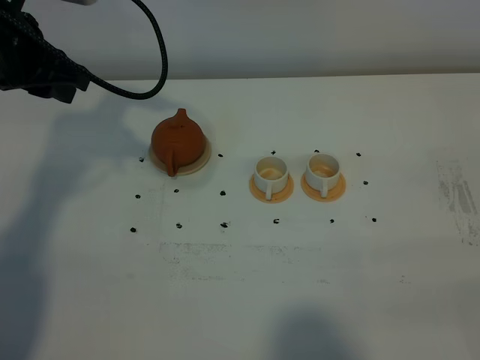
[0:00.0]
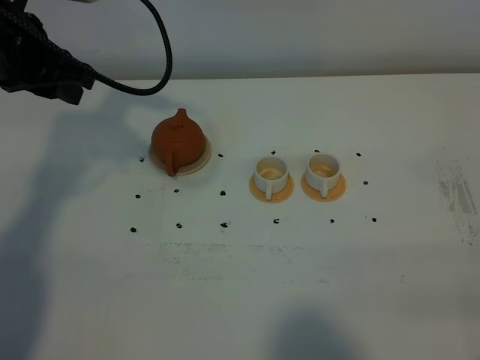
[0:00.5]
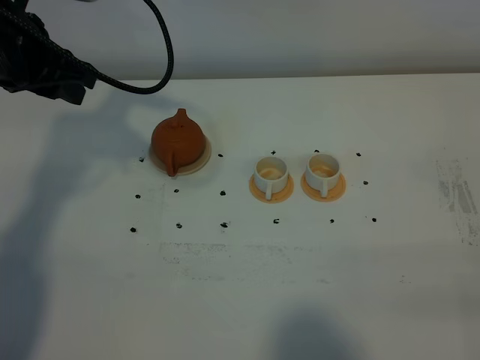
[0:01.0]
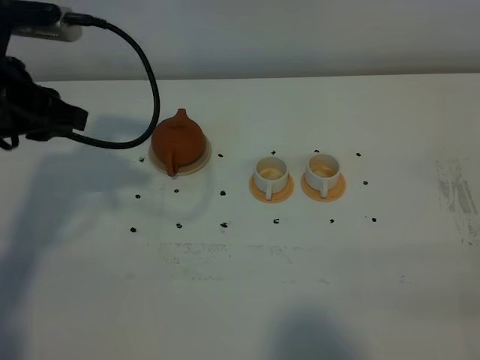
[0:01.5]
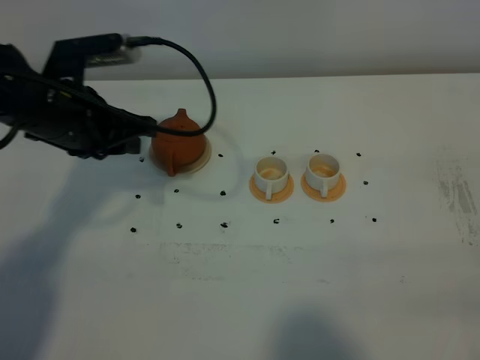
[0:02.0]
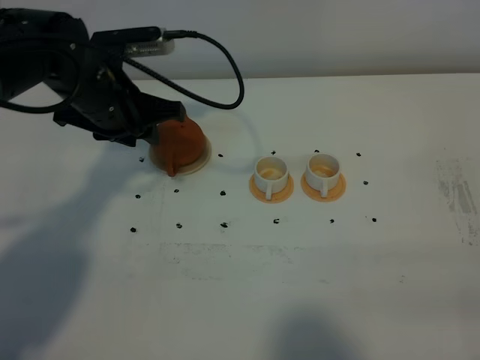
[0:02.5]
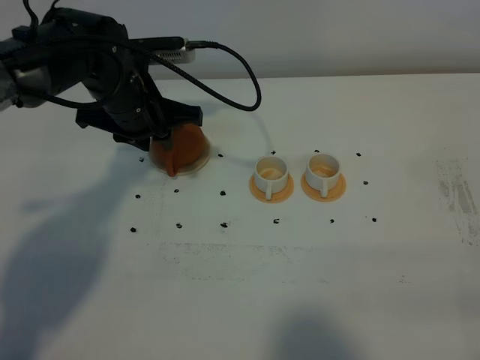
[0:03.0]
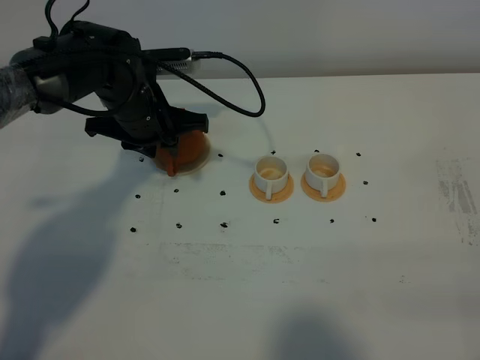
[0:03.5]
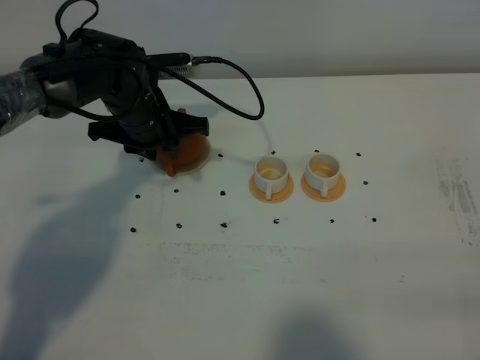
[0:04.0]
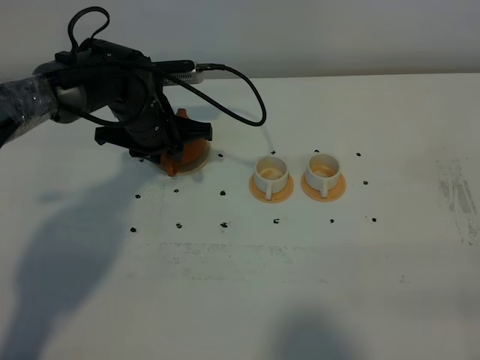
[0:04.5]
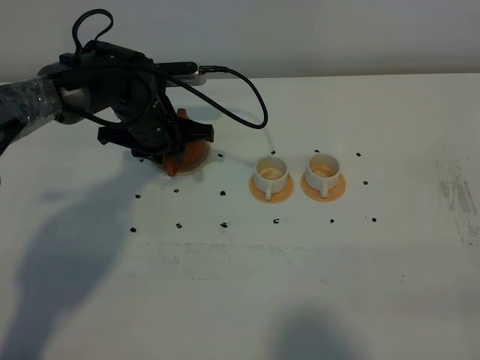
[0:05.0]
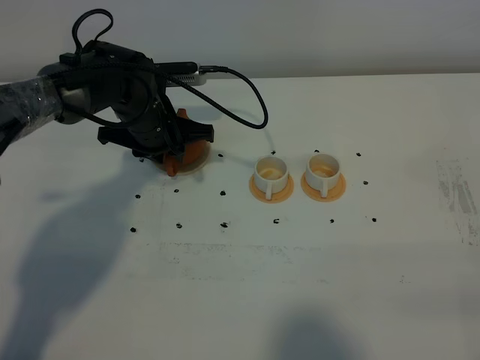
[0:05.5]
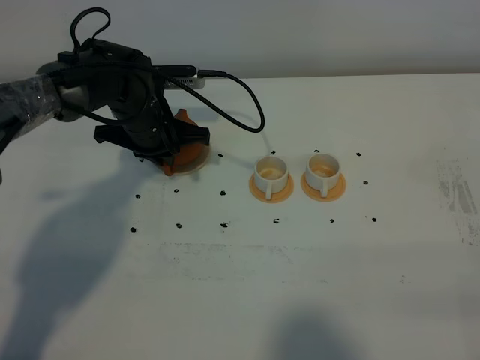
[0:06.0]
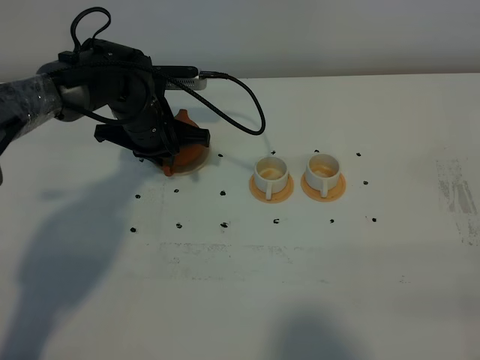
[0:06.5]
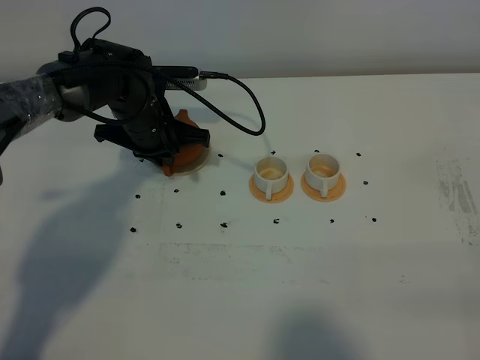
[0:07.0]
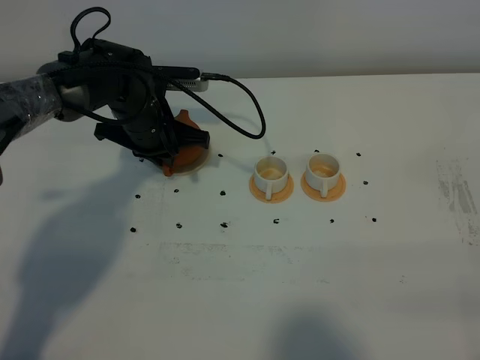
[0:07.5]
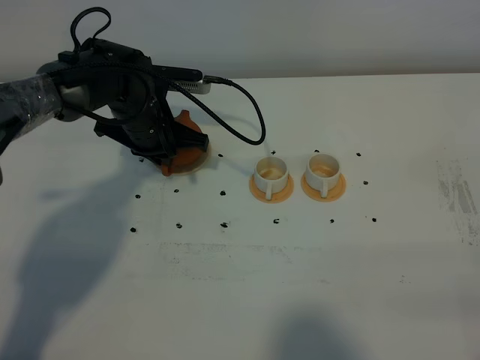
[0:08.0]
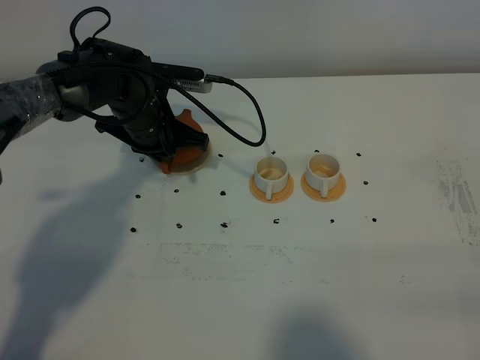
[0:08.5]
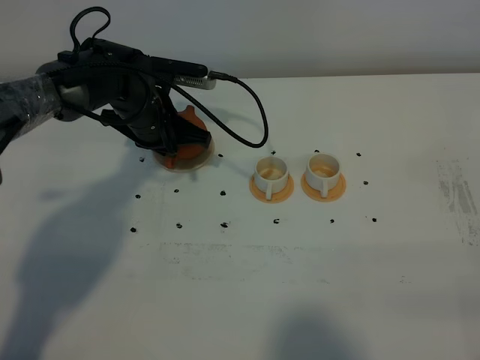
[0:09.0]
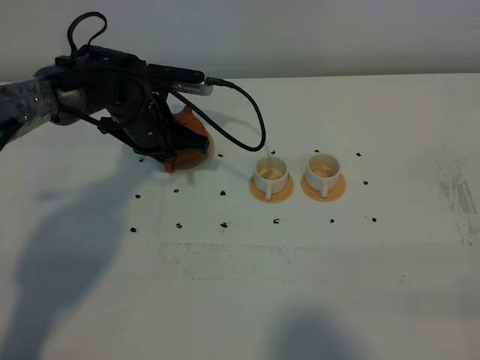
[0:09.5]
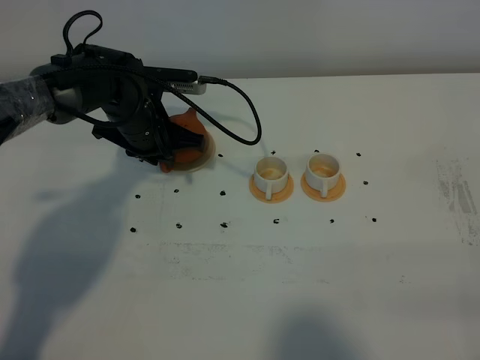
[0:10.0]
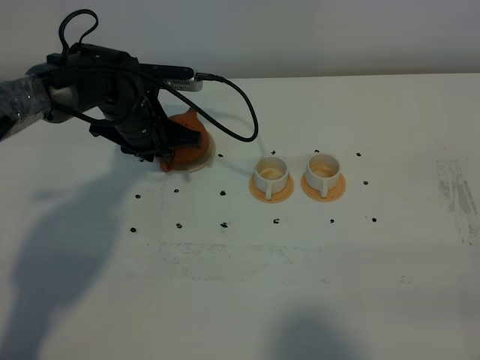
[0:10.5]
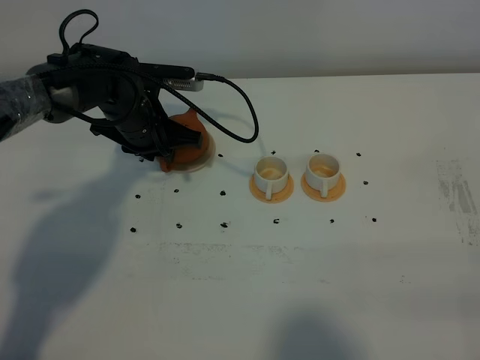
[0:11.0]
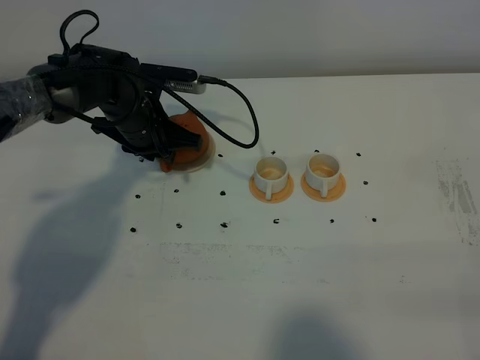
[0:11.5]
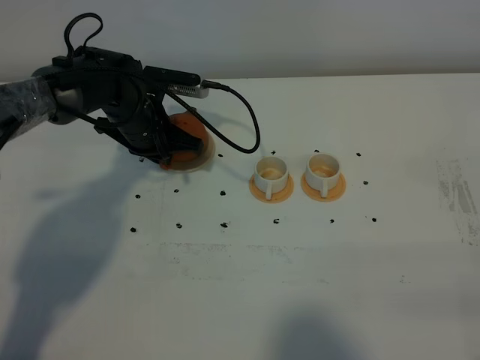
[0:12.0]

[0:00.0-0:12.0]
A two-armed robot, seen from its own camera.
Task of the whole recording: grasp the brown teapot and pour the tea into the two white teacups one by one, put the brown teapot back in its original place.
0:00.0 to 0:02.0: The left gripper goes roughly 10 cm downward and to the right.
0:02.0 to 0:04.0: The left gripper travels forward, downward and to the right by roughly 10 cm.
0:04.0 to 0:06.0: The left gripper closes.
0:06.0 to 0:08.0: The grippers move only a little.
0:08.0 to 0:10.0: The left gripper opens up.
0:10.0 to 0:12.0: The left gripper closes its fingers.

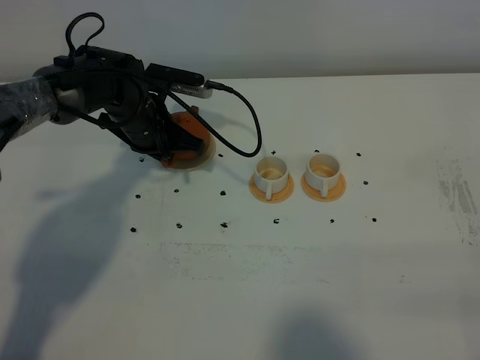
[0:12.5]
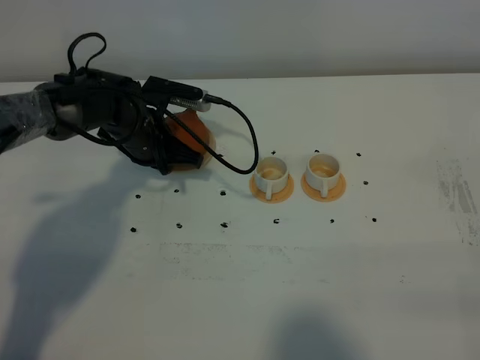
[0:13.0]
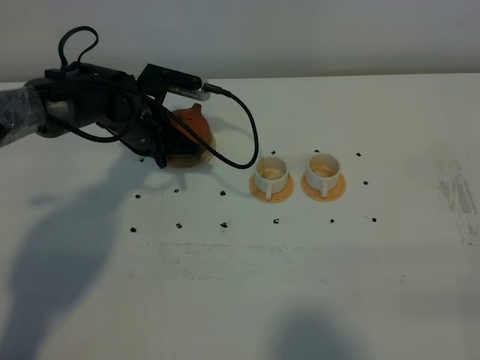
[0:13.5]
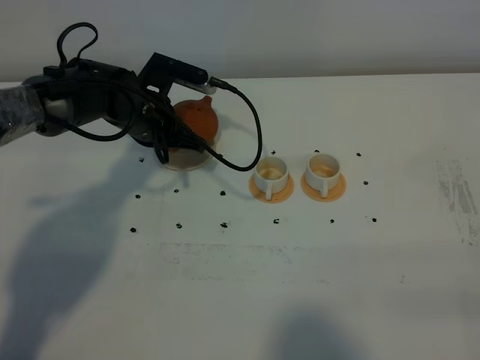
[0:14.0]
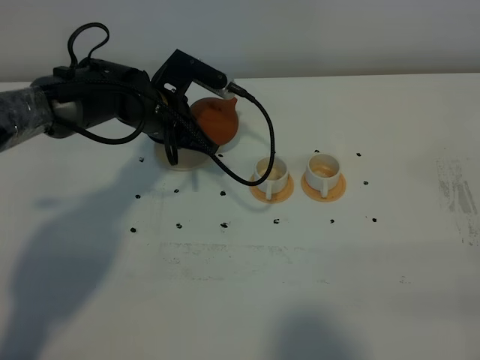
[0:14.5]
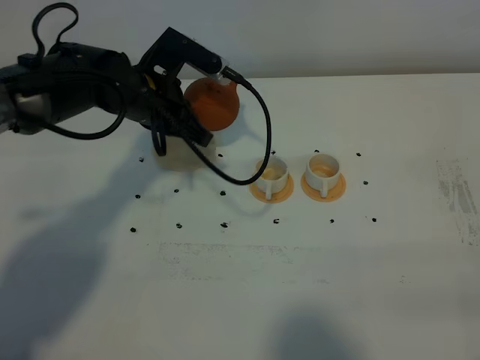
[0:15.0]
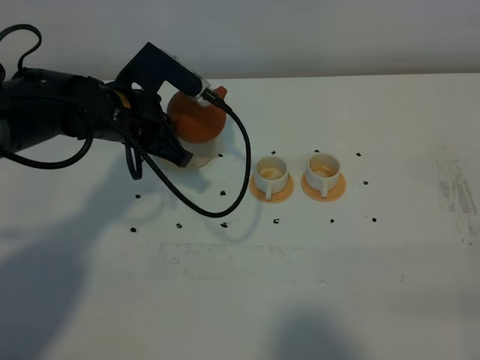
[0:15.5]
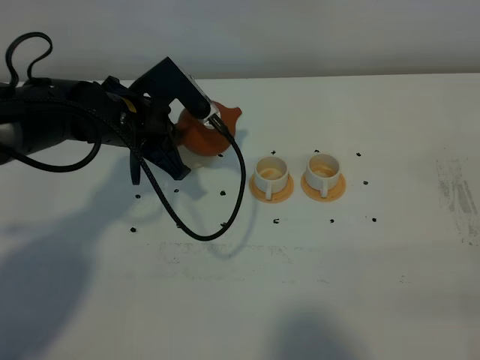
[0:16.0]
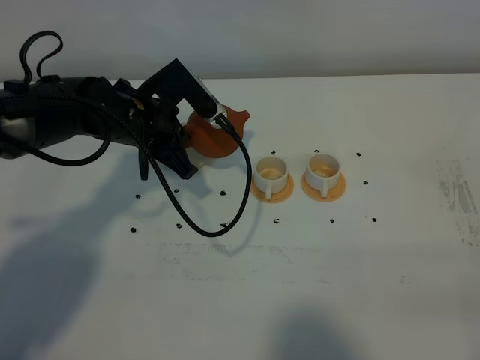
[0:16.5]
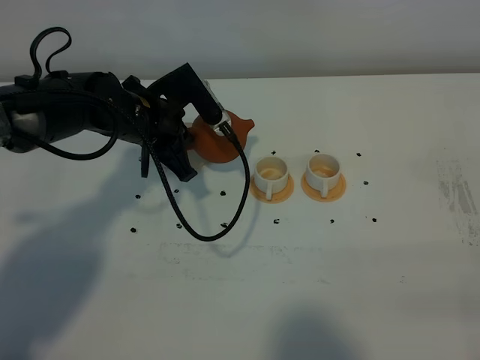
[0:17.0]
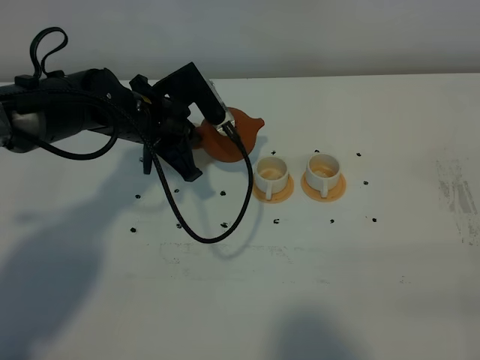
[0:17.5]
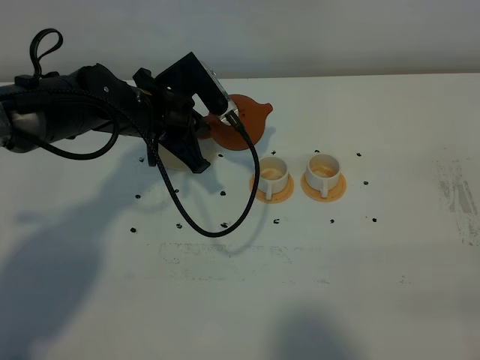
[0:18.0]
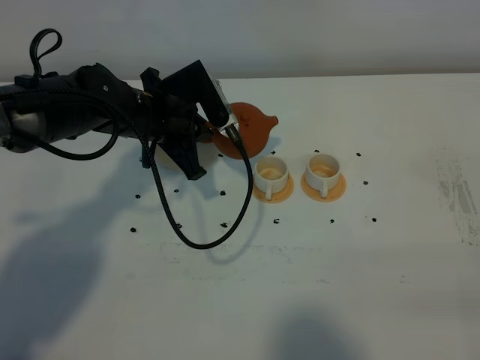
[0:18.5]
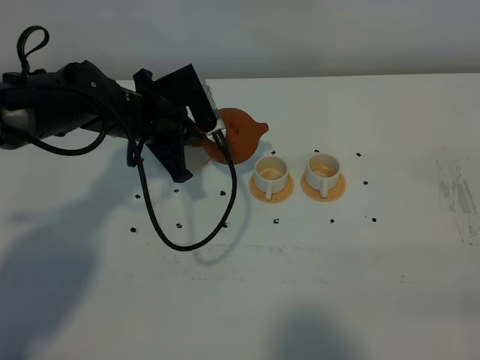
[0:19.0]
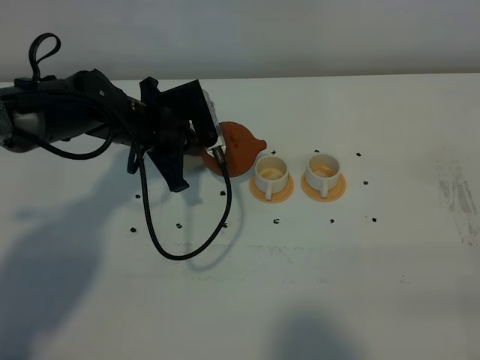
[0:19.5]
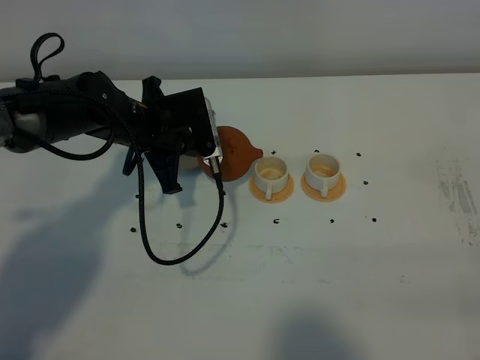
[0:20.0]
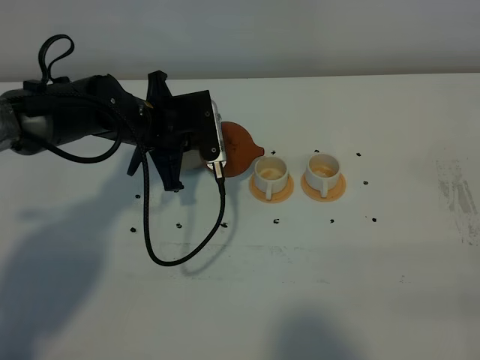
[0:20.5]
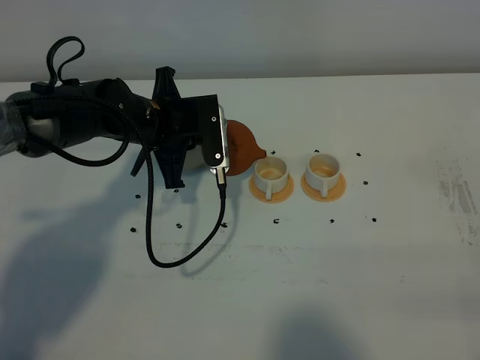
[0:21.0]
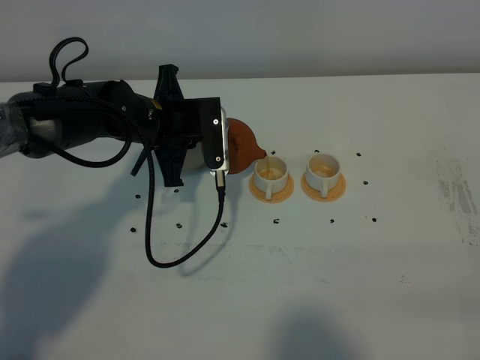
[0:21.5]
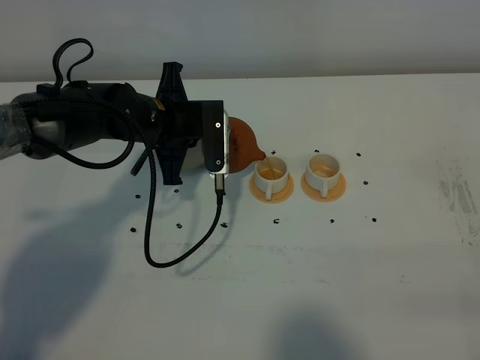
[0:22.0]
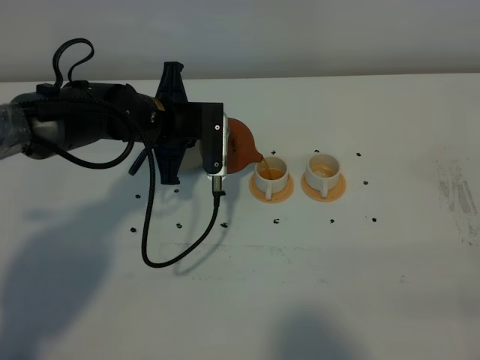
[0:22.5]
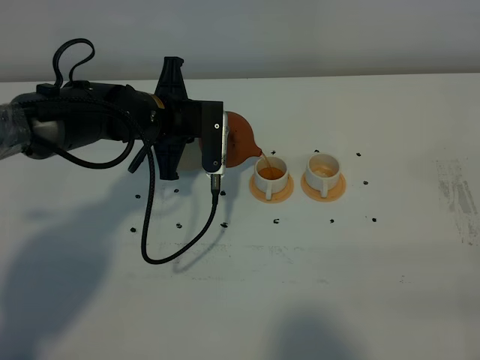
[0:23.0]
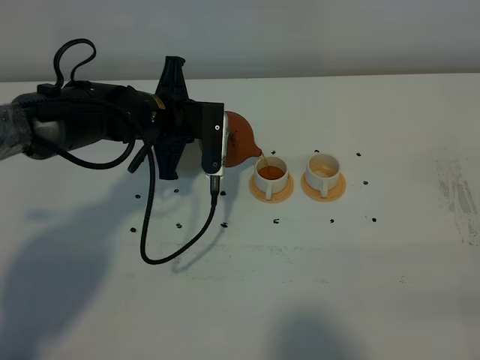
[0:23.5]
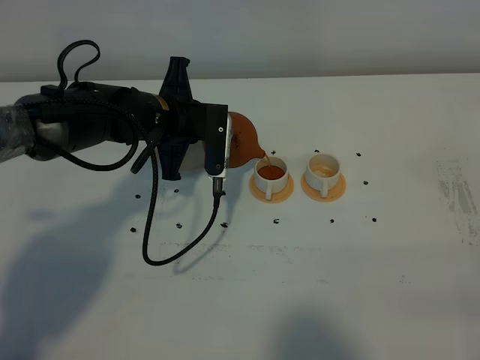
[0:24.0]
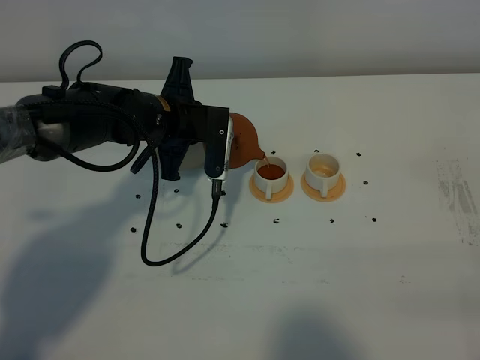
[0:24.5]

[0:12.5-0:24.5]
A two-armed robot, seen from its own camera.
Task of the whole recording: grasp the brown teapot and pour the tea into the two white teacups one by one, put the brown teapot back in its original place.
0:16.5 to 0:18.5: The grippers stay close to where they were, moving slightly.
0:18.5 to 0:20.5: The grippers make only small movements.
0:20.5 to 0:22.5: There are only small adjustments of the grippers.
0:22.5 to 0:24.5: There are only small adjustments of the grippers.

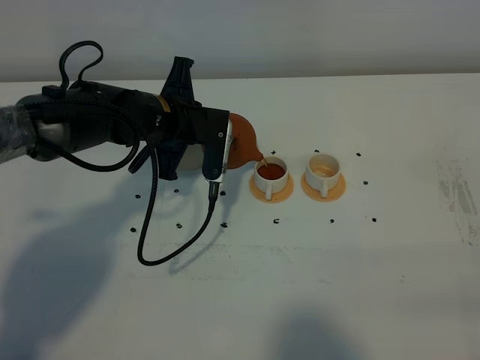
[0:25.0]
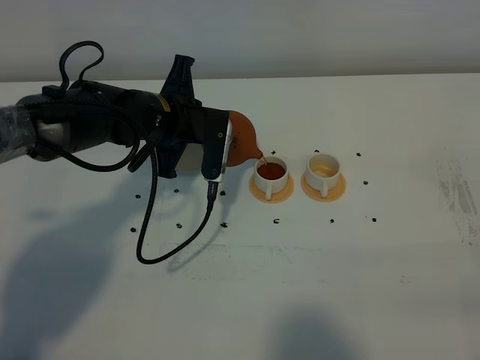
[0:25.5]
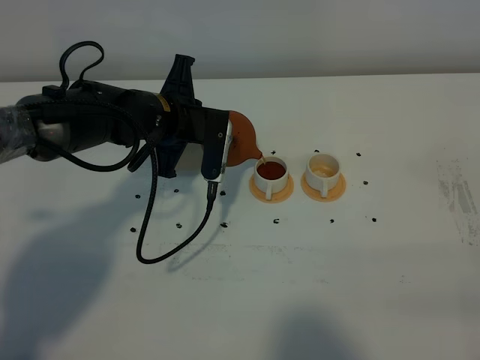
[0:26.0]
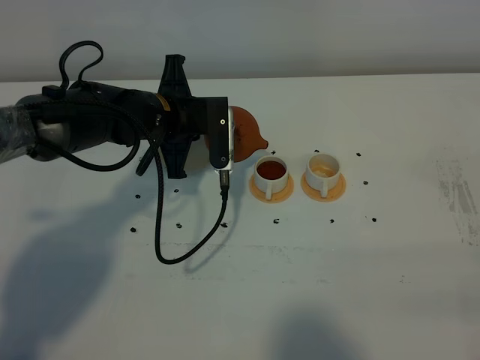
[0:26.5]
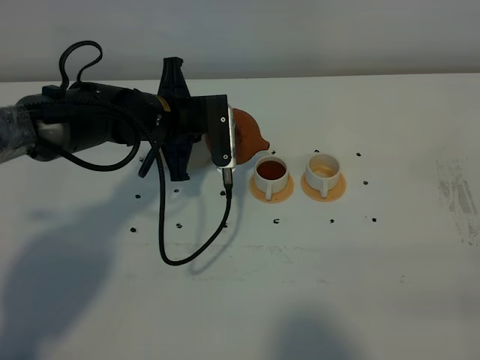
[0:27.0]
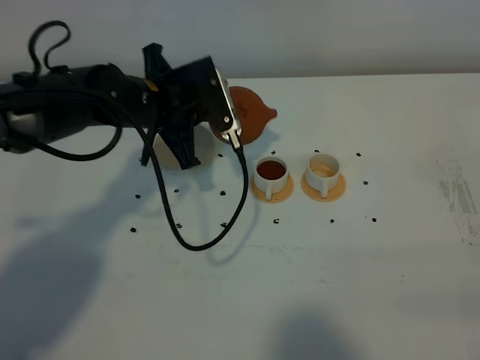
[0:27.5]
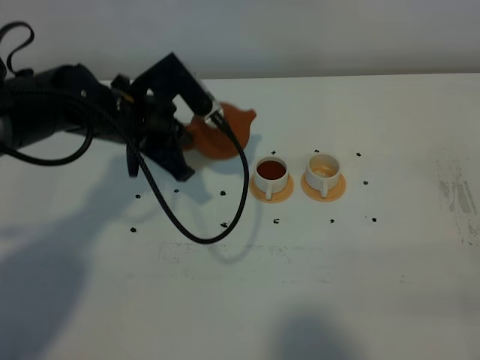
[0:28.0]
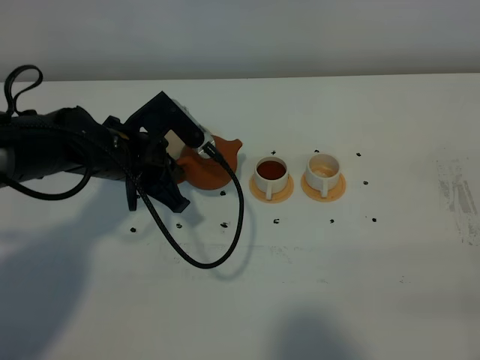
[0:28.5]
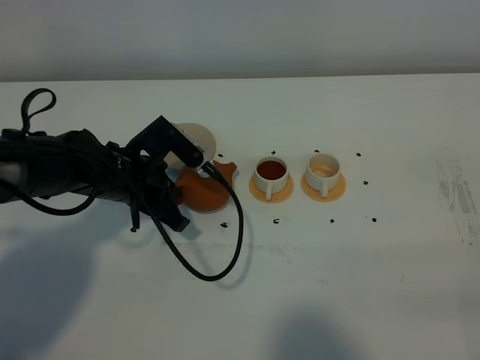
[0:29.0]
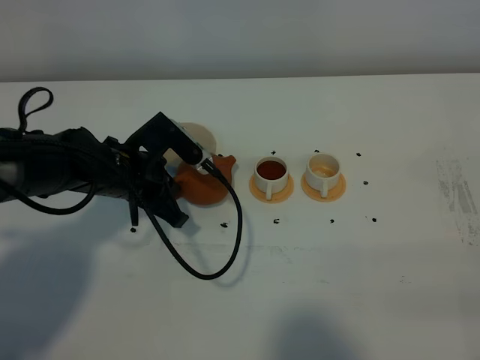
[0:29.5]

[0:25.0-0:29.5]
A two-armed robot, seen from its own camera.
Task of the whole recording: grasp the brown teapot and pour the tea into the two white teacups one by one, put the brown teapot back in its original place.
0:25.0 to 0:27.0: The grippers stay close to where they were, moving slightly.
0:27.0 to 0:29.5: The left gripper travels backward by roughly 5 cm.
